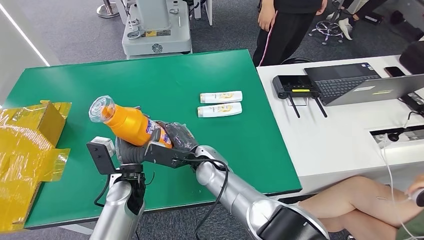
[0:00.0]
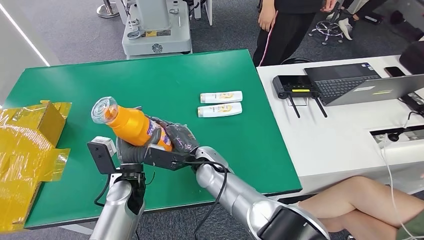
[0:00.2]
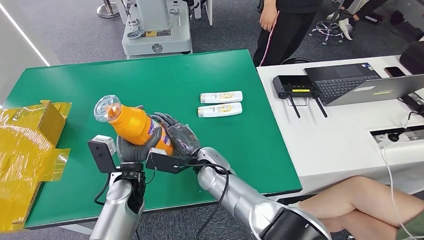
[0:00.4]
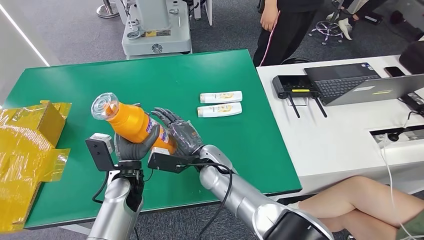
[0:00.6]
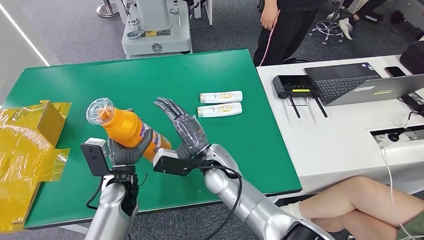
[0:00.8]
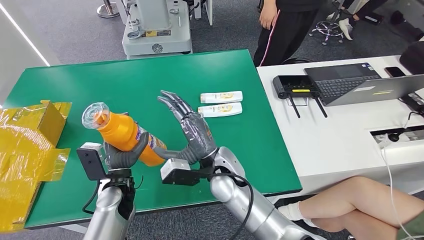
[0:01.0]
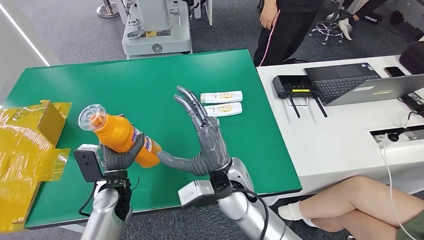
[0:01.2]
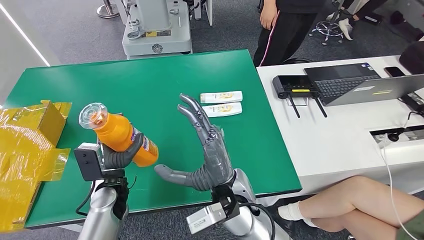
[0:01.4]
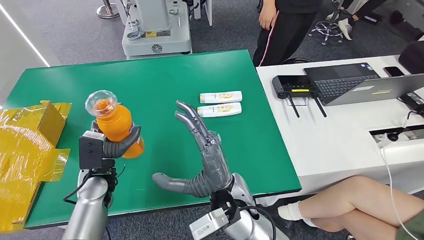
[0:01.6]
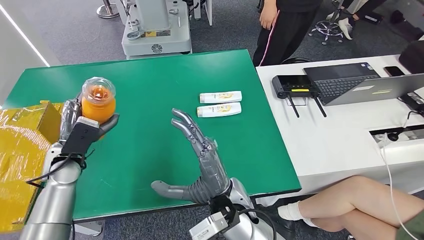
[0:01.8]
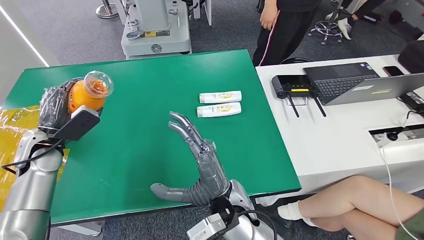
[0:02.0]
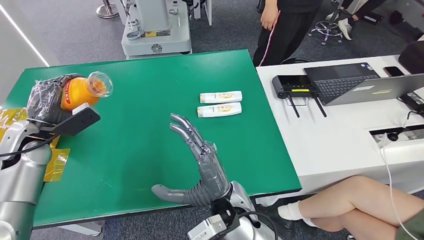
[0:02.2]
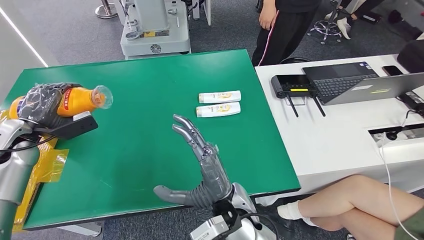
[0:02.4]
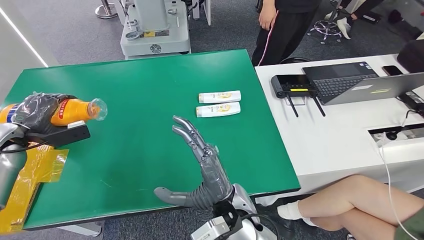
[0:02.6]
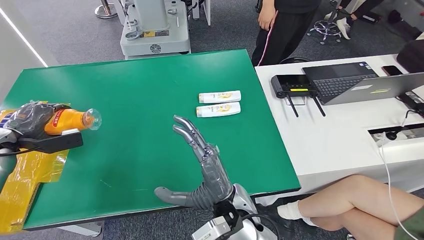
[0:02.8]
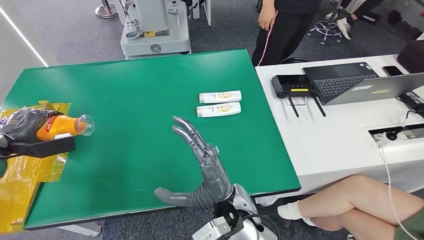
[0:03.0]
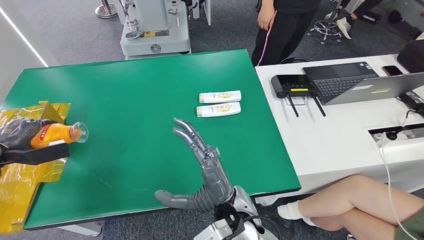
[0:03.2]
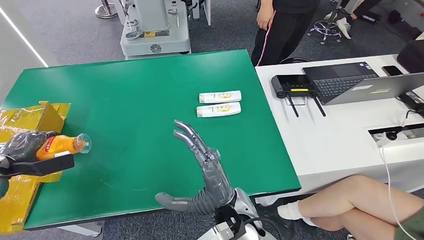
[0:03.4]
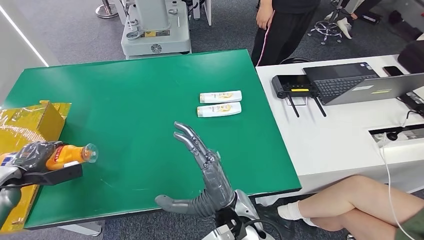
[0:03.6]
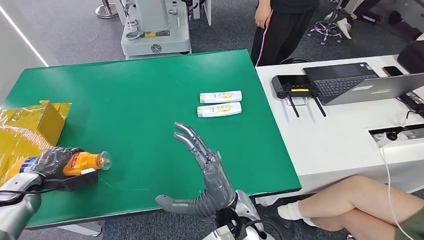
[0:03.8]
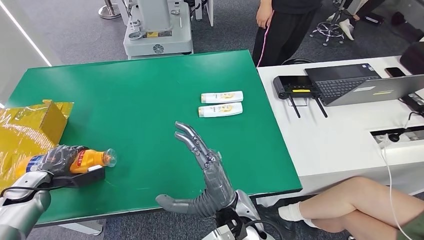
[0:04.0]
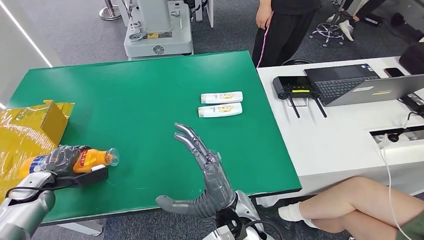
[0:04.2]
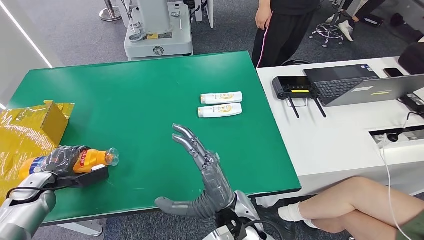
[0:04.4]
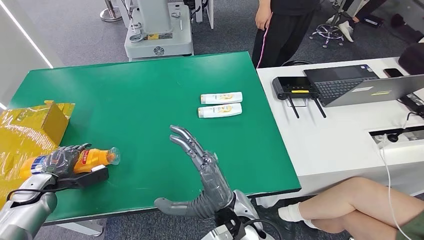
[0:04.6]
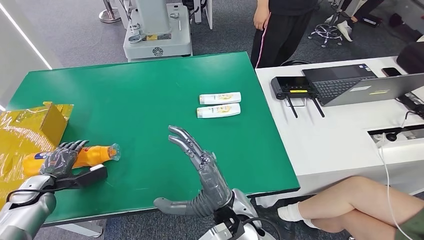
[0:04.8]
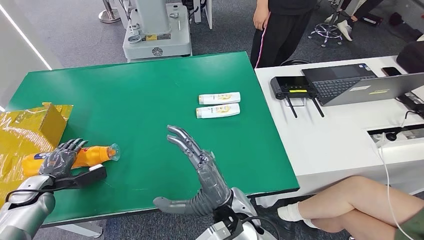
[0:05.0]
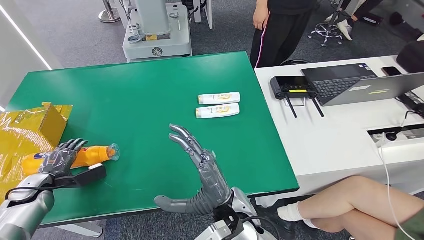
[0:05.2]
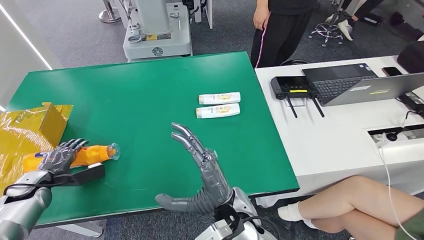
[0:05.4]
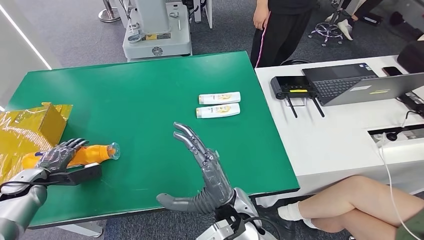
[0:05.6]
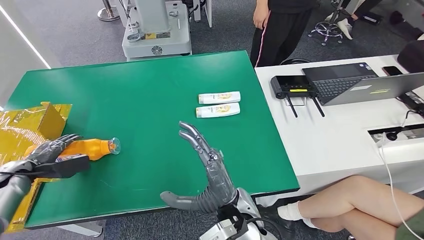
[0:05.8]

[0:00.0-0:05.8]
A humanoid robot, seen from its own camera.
Step, 0:00.0 to 0:05.8: Turn the bottle to the front side.
0:00.0 to 0:01.4: The right hand moves backward and upward, about 10 cm.
0:04.4 to 0:05.8: The left hand is displaced upward by some 5 cm.
